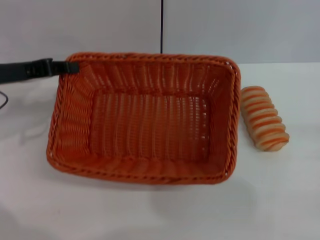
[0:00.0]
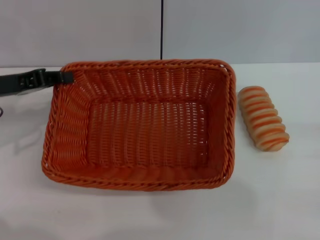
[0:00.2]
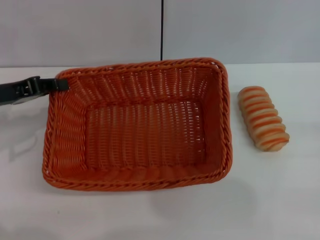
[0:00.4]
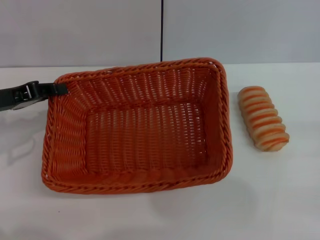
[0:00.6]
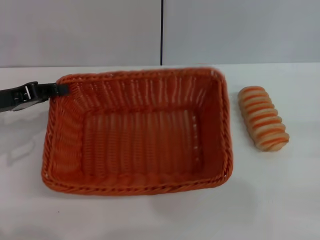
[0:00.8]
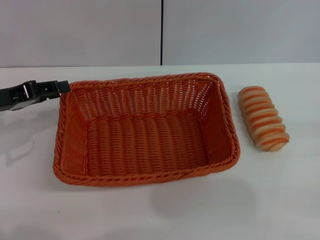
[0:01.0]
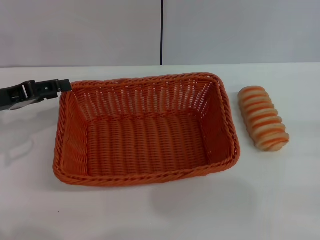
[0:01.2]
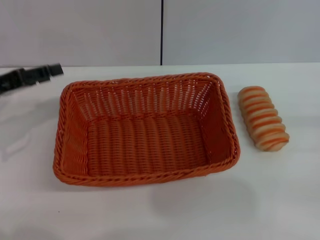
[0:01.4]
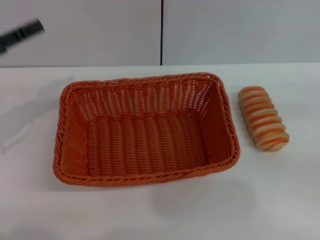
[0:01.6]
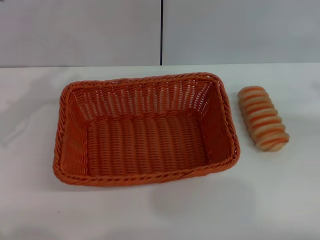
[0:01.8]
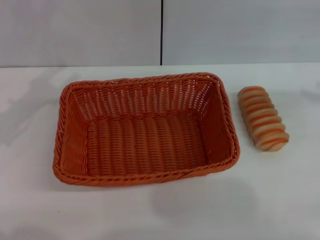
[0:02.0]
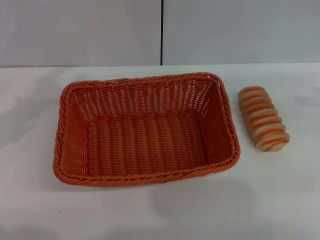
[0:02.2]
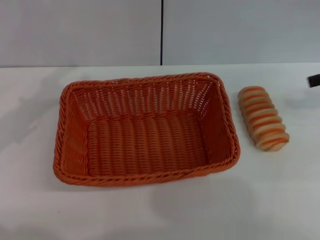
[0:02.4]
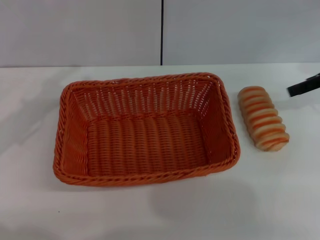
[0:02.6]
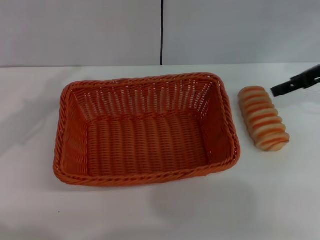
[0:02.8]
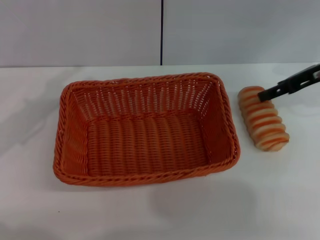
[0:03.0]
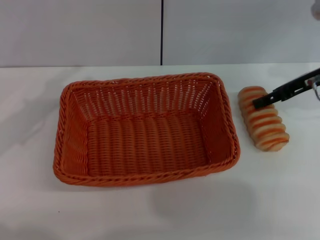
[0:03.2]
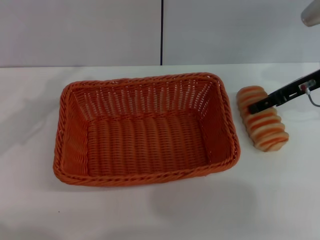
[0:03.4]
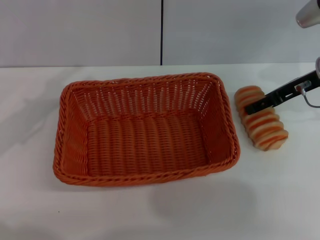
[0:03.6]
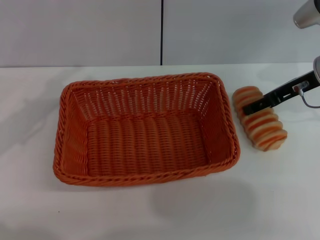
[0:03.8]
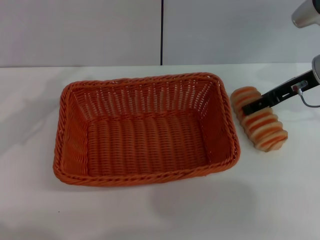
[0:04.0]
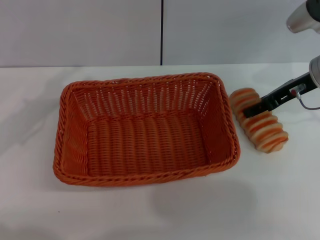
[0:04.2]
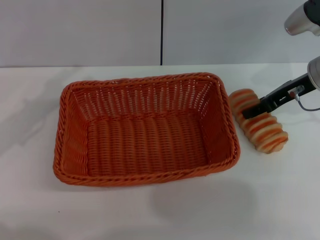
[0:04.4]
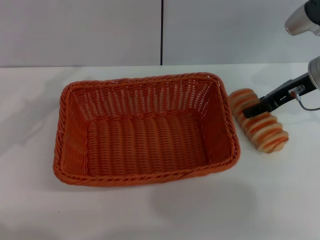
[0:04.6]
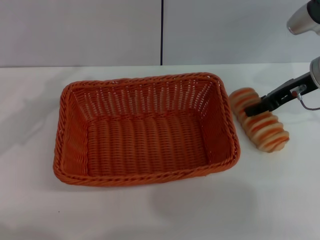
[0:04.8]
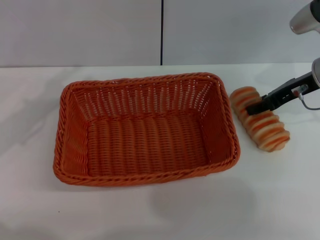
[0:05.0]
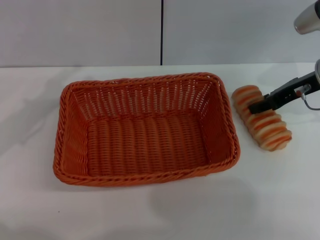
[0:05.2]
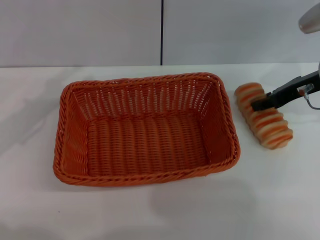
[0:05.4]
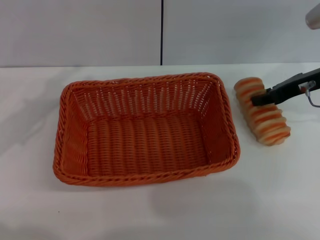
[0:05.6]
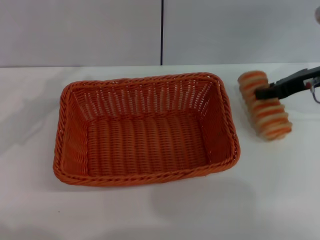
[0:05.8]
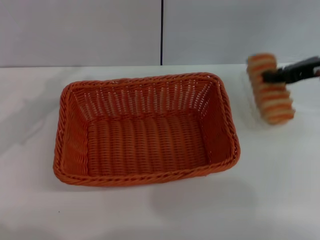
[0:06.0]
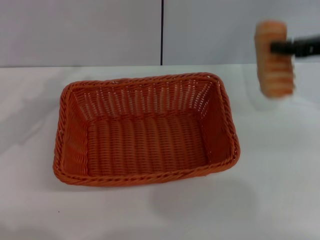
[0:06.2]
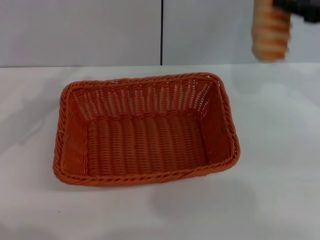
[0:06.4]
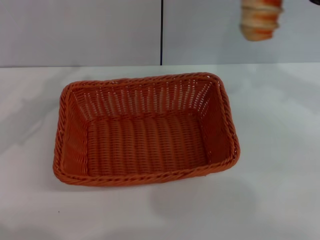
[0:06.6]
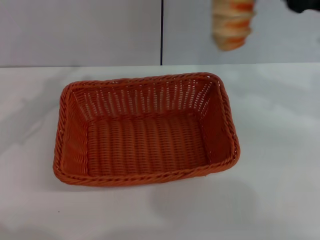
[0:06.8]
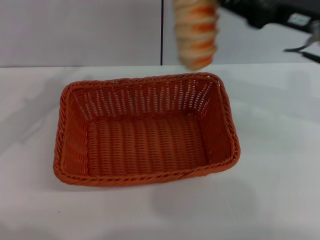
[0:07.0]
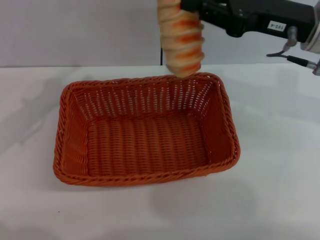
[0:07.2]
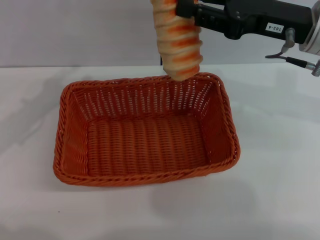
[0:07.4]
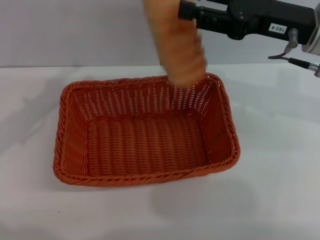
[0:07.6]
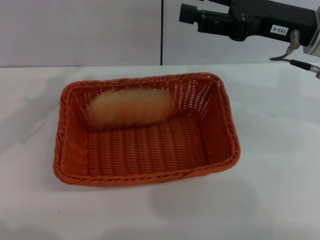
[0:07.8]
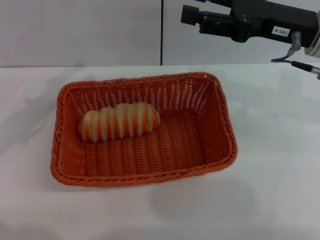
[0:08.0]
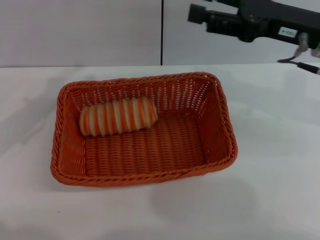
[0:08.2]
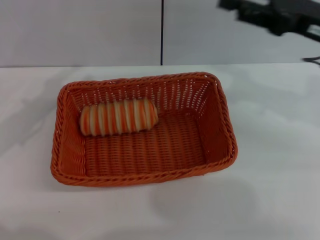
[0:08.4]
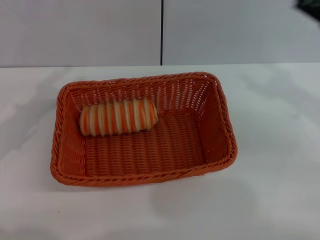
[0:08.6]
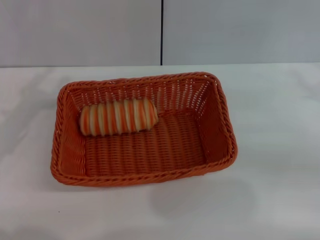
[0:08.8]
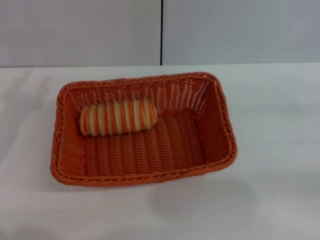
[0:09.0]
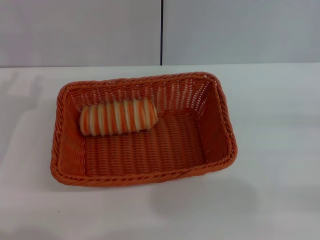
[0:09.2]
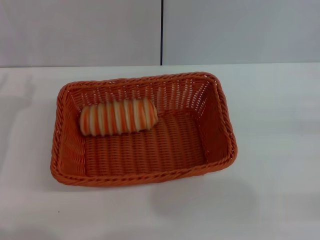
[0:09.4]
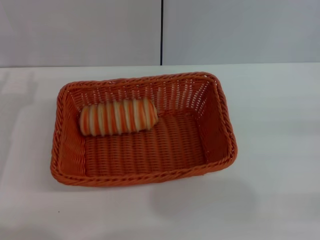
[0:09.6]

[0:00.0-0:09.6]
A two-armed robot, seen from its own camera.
Step, 0:00.0 to 0:01.0: Place the light basket in the center of view with the left gripper.
Step, 0:01.2 to 0:06.0: Pick up the long bread with the right gripper.
Step, 0:06.2 to 0:07.8: Place the long bread into the light basket with the right gripper.
0:00.0 to 0:01.6: The left gripper shifts by roughly 5 cm, and opens. Meanwhile the right gripper travels upward by roughly 5 cm.
0:01.6 to 0:03.2: The right gripper heads forward and to the left, covering some 20 cm.
0:03.2 to 0:04.8: The right gripper closes up.
0:04.8 to 0:06.4: The right gripper travels upward and to the right by some 10 cm, and closes its fingers.
0:06.4 to 0:08.0: The right gripper is displaced to the left by approximately 10 cm, and opens up.
0:08.0 to 0:09.6: The right gripper goes some 25 cm to the right, backward and downward. The left gripper shifts some 10 cm downward.

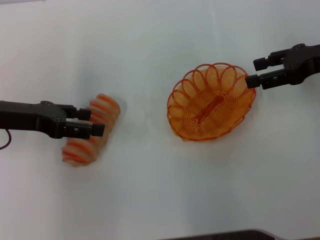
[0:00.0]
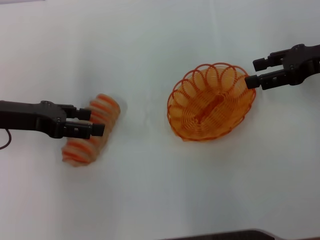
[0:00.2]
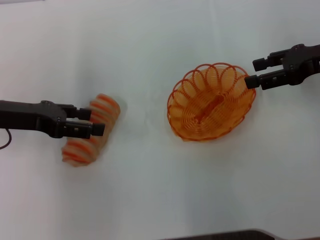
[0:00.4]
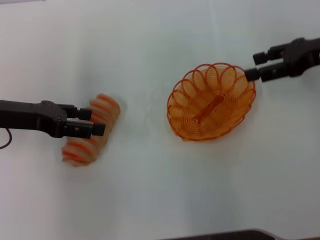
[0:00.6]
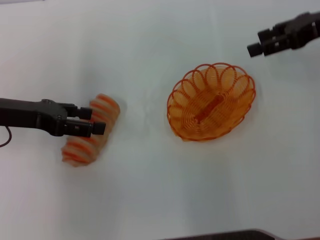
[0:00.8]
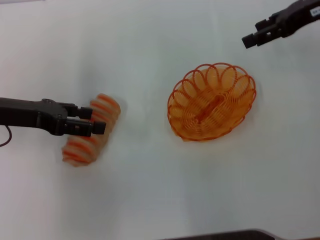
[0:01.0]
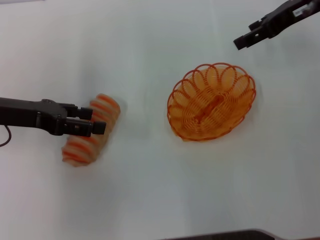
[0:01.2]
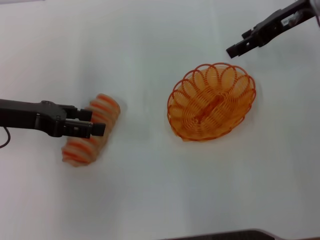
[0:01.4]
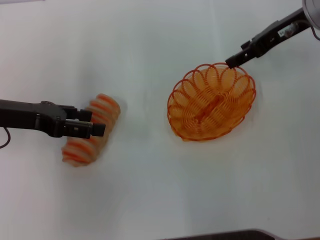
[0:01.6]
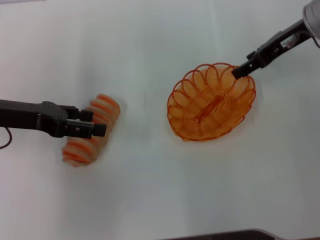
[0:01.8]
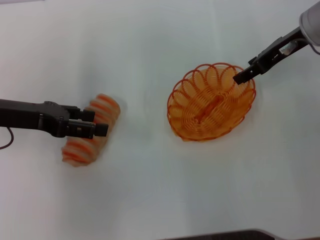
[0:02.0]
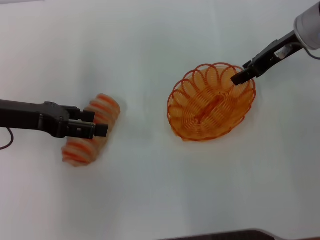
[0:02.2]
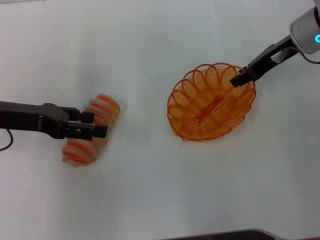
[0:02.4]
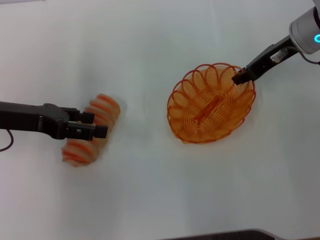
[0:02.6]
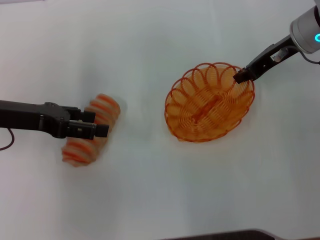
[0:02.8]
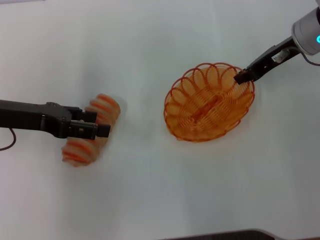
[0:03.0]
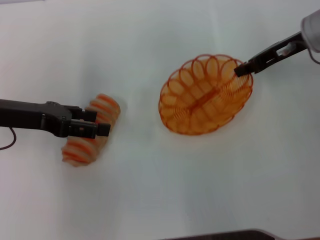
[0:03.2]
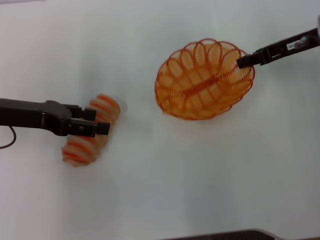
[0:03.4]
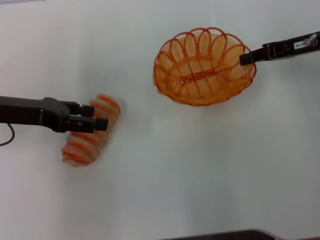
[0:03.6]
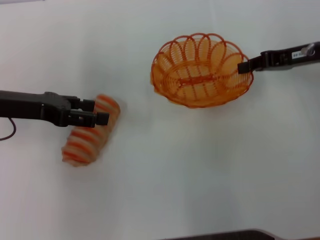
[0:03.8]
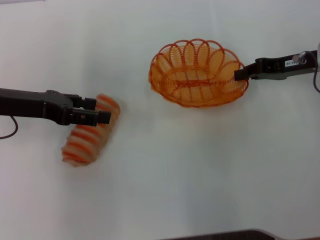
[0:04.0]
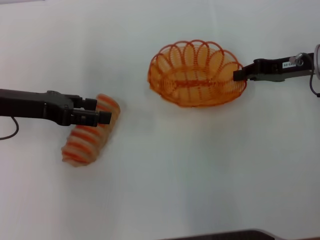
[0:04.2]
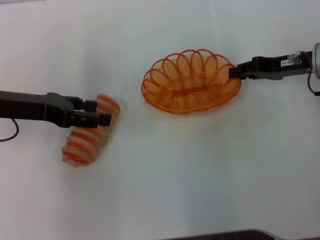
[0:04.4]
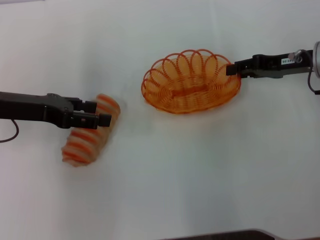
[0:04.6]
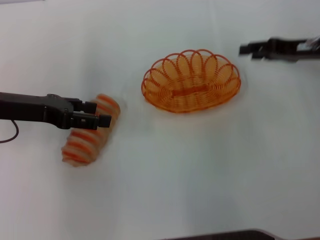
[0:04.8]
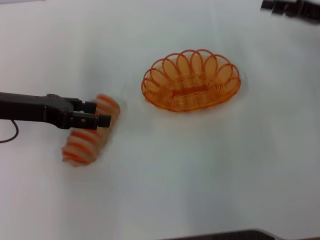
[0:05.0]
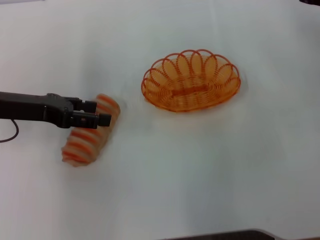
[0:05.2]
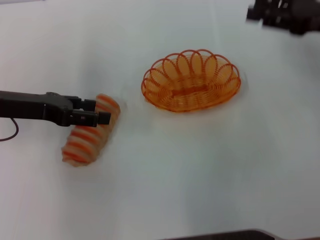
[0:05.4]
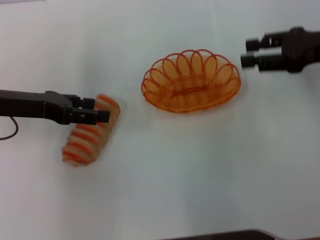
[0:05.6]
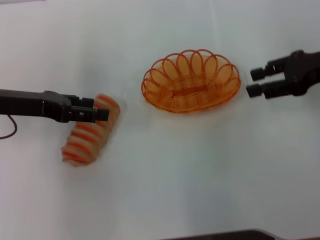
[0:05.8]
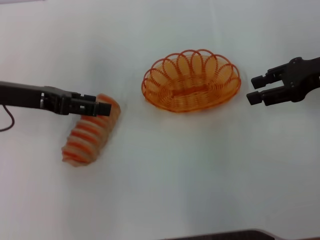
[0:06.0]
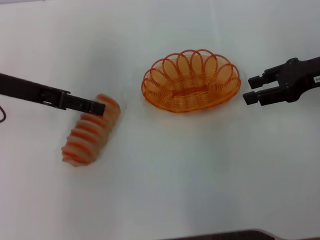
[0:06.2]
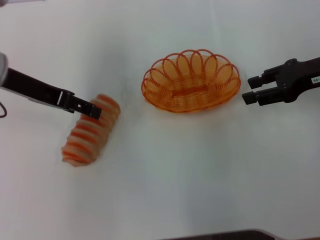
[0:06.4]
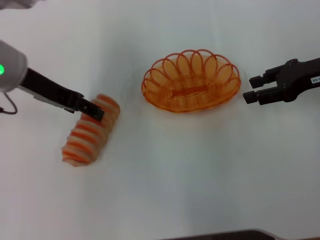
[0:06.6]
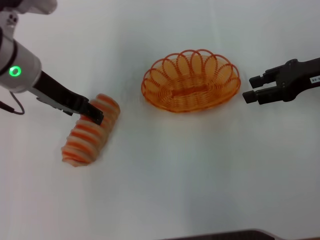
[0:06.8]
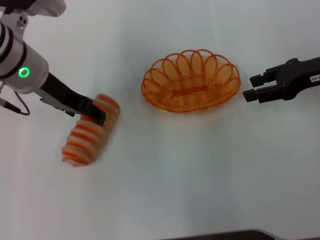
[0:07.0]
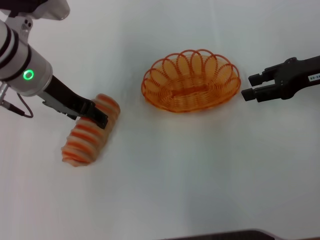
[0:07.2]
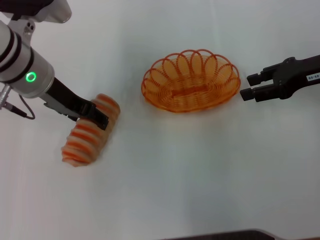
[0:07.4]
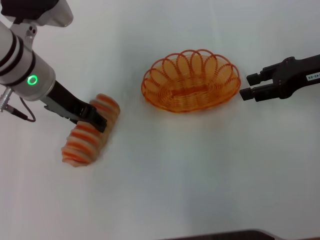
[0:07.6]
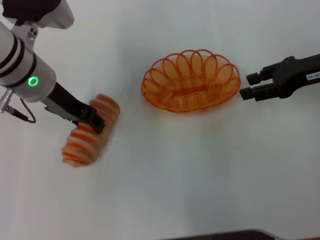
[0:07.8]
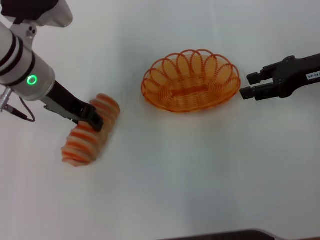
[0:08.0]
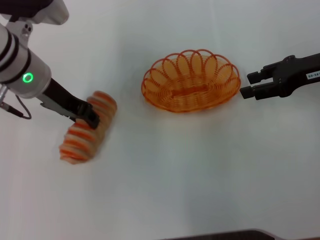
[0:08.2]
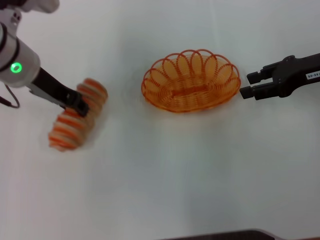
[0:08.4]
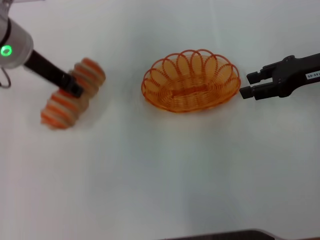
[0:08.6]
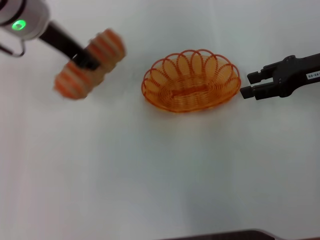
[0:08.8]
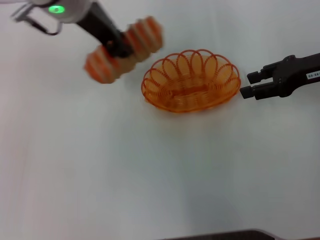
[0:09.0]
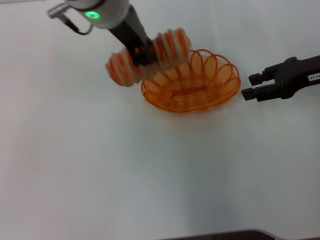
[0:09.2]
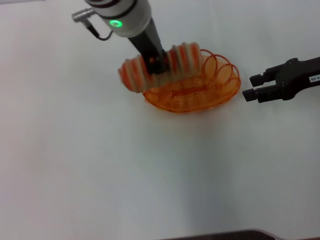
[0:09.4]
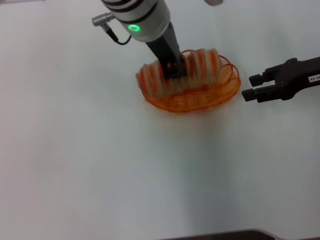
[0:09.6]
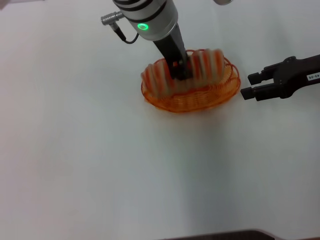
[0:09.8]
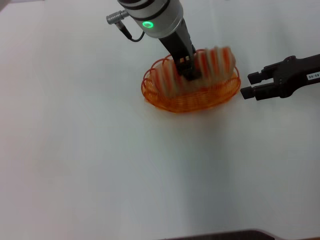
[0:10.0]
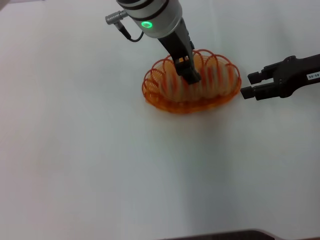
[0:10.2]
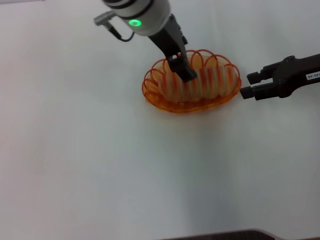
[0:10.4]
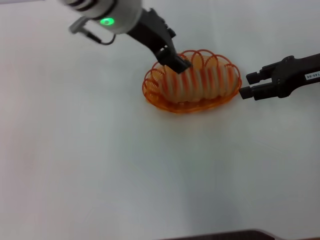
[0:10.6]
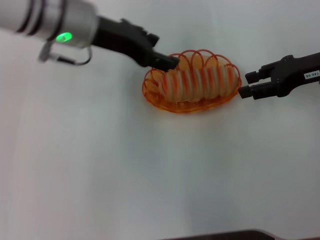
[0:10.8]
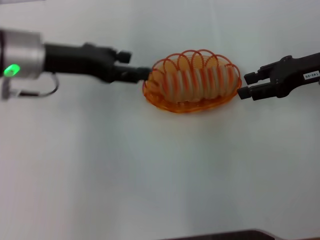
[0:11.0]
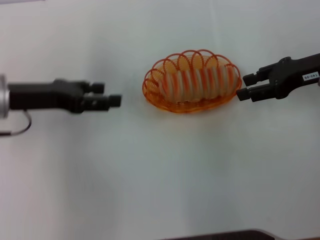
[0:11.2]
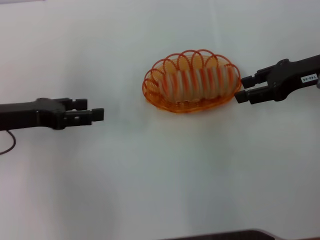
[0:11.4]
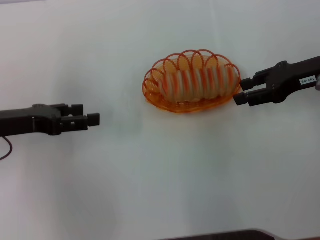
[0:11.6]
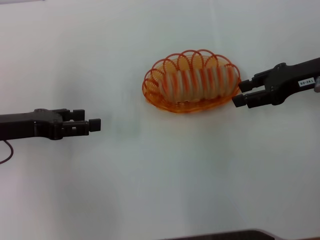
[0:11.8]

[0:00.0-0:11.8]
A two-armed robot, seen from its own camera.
Step, 0:00.0 to 0:03.0: Pick up the basket with the right gripper.
Step, 0:03.2 to 0:04.6: Place the basket in the center of view with the right gripper.
Step, 0:04.8 to 0:08.2: Pick up the long bread with the left gripper.
Step, 0:08.4 to 0:10.2: Place the long bread into the basket with the left gripper.
0:00.0 to 0:01.4: The right gripper goes approximately 10 cm forward and to the left.
0:01.4 to 0:03.0: The right gripper ends up roughly 5 cm from where it was, and closes.
0:03.0 to 0:04.4: The right gripper moves some 5 cm.
0:04.4 to 0:06.0: The right gripper goes about 5 cm upward, and opens up.
0:06.0 to 0:07.4: The left gripper goes roughly 10 cm to the right.
0:07.4 to 0:08.8: The left gripper moves upward, roughly 5 cm, and closes its fingers.
0:08.8 to 0:10.4: The left gripper goes some 15 cm to the right, and opens up.
0:10.4 to 0:11.8: The left gripper is displaced to the left and downward by approximately 30 cm.
